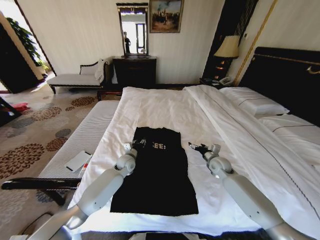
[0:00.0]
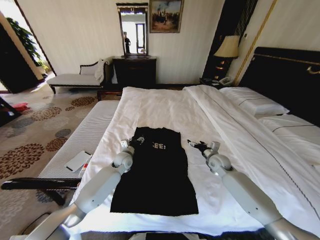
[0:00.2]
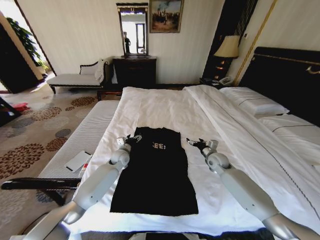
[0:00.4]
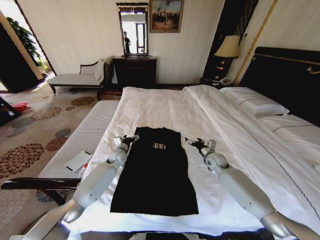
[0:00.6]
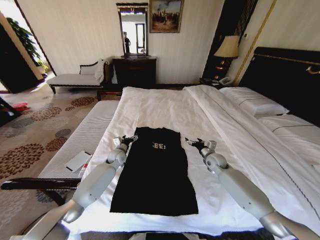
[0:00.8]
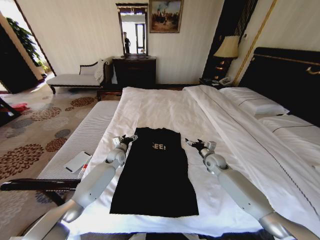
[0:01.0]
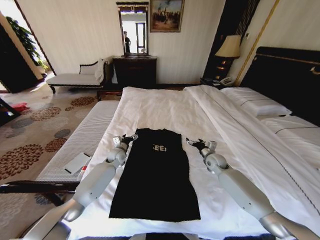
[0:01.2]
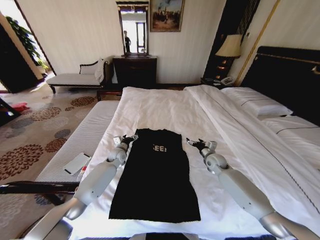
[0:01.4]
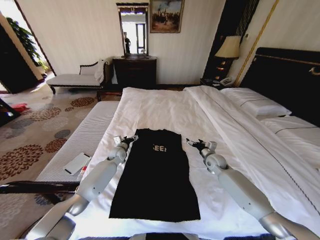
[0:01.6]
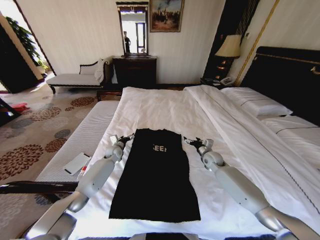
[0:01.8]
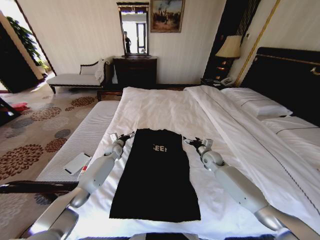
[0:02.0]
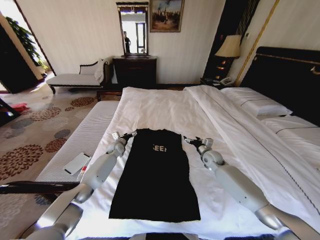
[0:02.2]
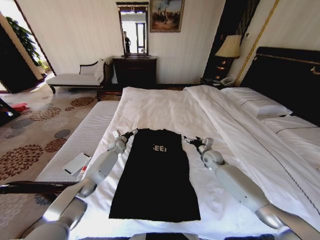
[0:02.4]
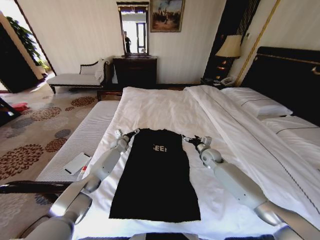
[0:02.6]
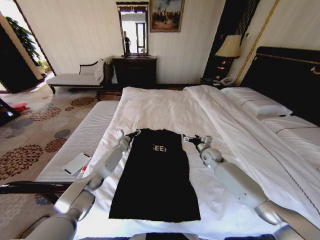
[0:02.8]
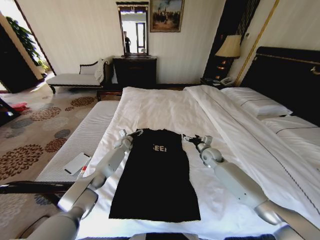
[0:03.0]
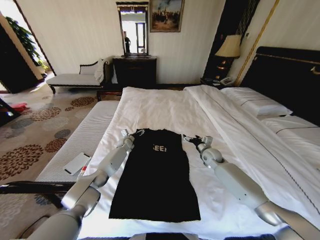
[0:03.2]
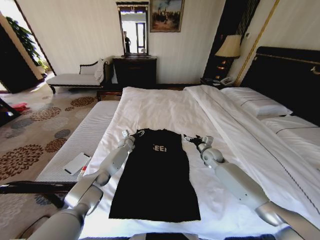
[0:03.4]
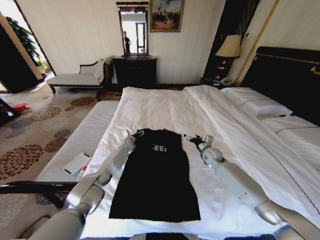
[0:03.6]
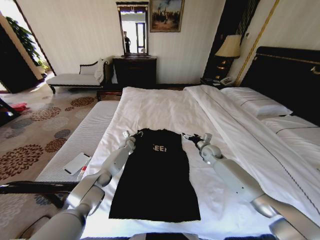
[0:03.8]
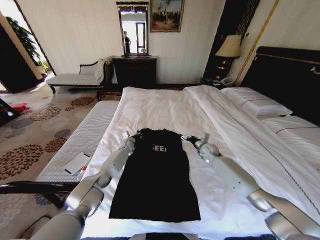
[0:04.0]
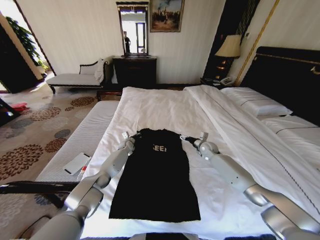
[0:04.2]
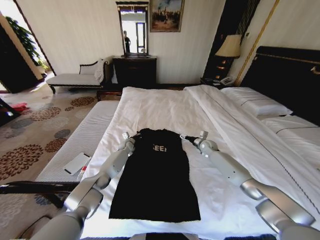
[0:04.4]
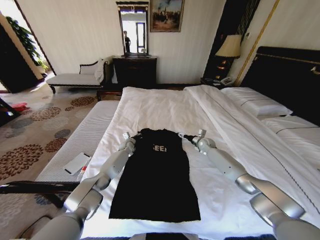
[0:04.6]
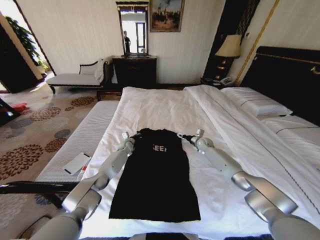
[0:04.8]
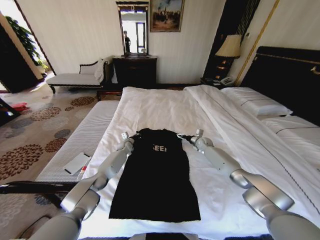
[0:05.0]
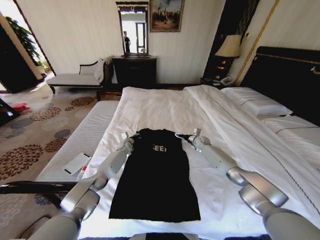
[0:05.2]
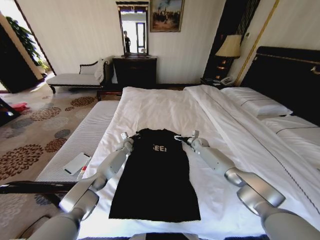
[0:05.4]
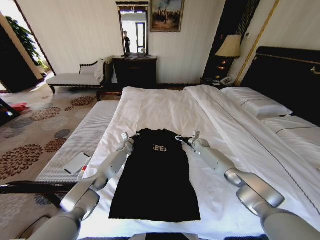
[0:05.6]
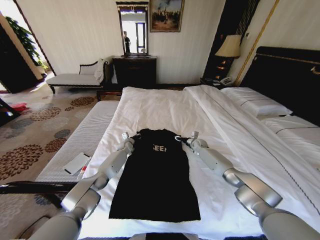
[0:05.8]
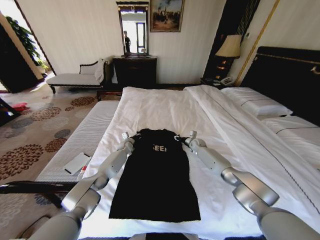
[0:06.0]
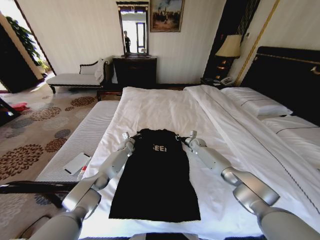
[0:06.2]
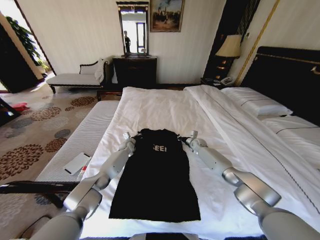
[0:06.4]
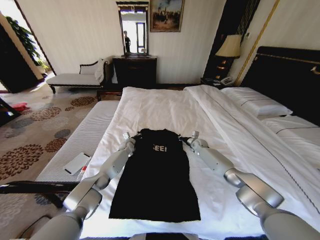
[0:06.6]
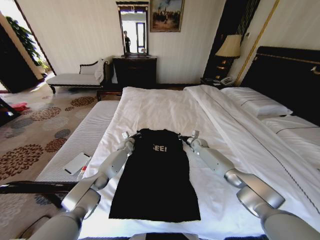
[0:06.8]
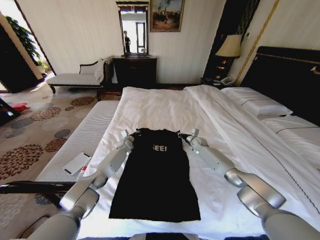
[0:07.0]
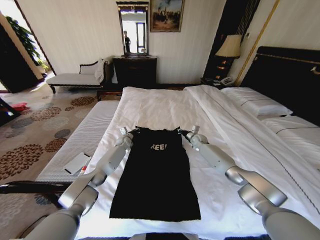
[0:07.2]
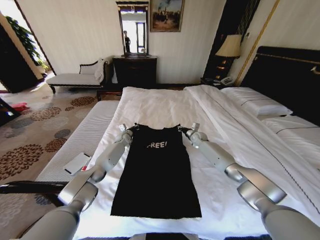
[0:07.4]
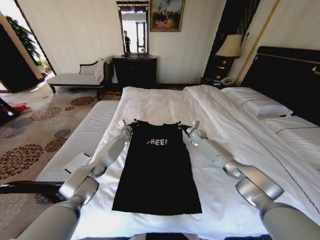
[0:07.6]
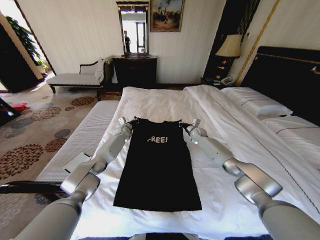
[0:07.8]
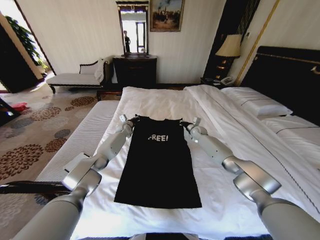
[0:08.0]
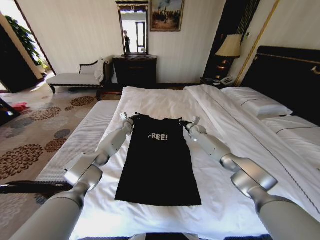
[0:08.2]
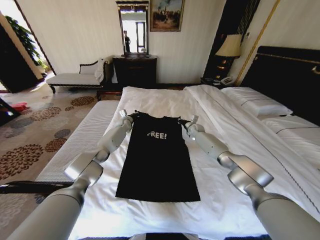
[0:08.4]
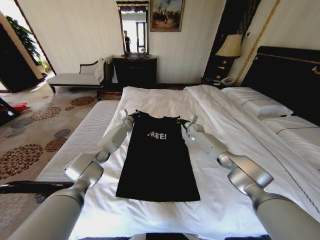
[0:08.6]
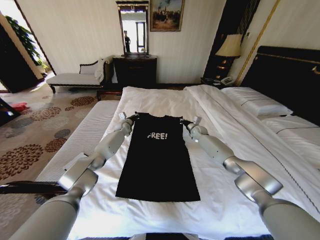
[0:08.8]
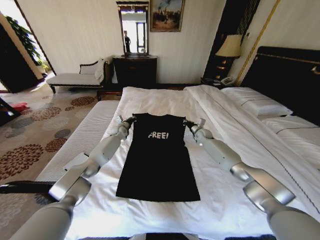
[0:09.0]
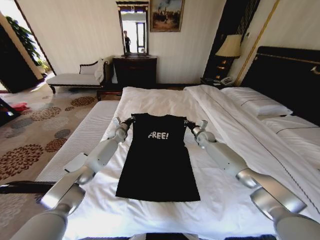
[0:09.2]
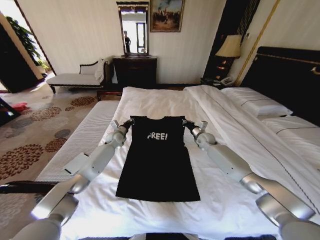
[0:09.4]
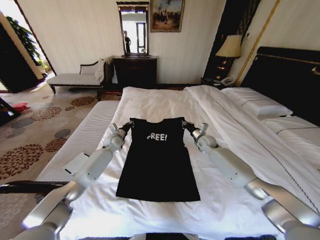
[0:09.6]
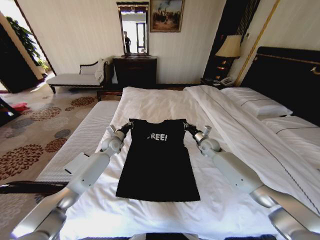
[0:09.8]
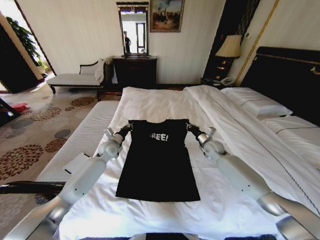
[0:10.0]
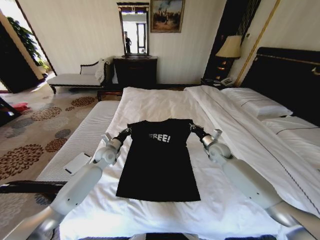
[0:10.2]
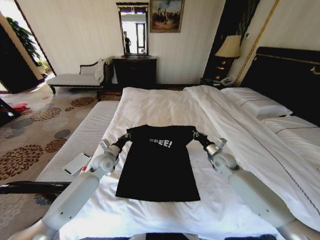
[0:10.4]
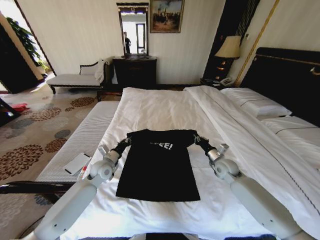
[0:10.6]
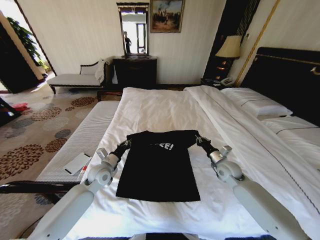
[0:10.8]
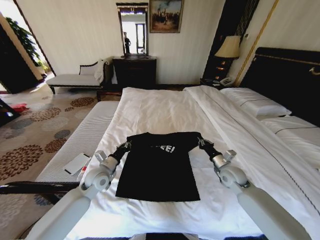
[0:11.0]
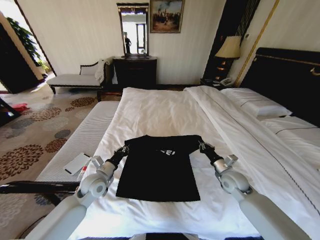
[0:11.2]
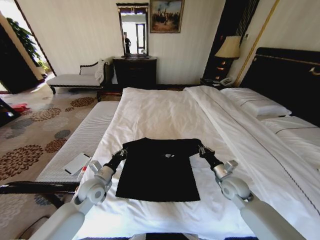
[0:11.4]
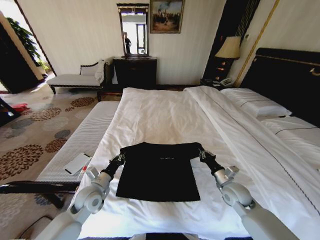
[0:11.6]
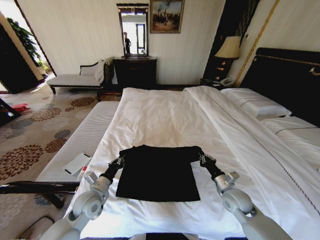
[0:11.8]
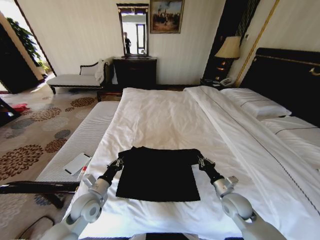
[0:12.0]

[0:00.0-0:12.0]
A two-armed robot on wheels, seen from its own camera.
Task of the whole recording: Fold the clothes on the bed.
0:00.0 to 0:01.6: The left gripper goes some 10 cm to the left and forward, and opens up.
0:01.6 to 0:03.0: The left gripper shifts roughly 10 cm forward.
0:03.0 to 0:04.4: The left gripper closes; the right gripper shifts roughly 10 cm forward.
0:04.4 to 0:06.0: The right gripper ends up approximately 5 cm from where it was, and closes.
0:06.0 to 0:07.6: The two grippers go about 5 cm upward. The right gripper closes.
0:09.0 to 0:10.4: Both grippers move backward, about 20 cm.
0:10.4 to 0:12.0: Both grippers travel together backward, approximately 20 cm.

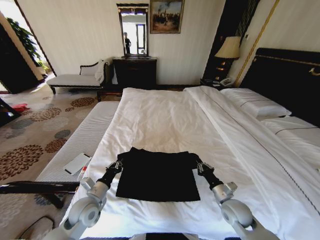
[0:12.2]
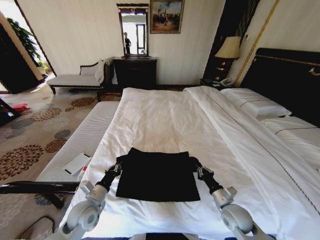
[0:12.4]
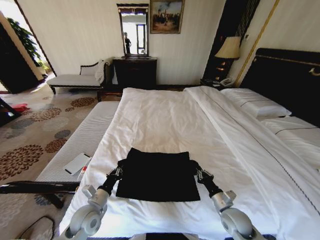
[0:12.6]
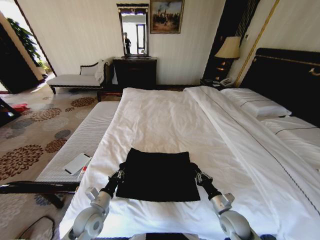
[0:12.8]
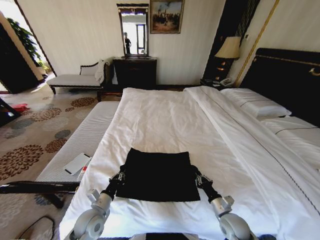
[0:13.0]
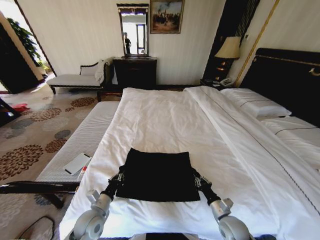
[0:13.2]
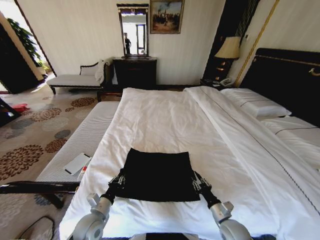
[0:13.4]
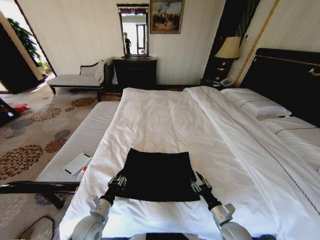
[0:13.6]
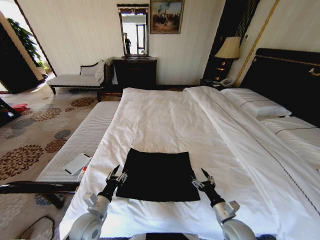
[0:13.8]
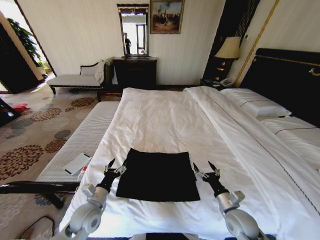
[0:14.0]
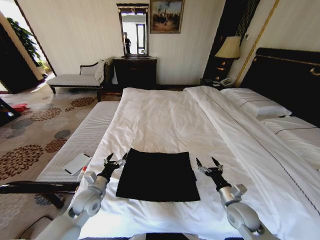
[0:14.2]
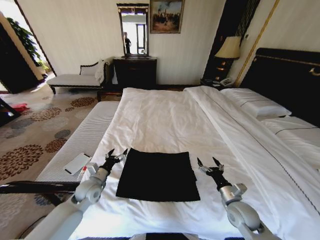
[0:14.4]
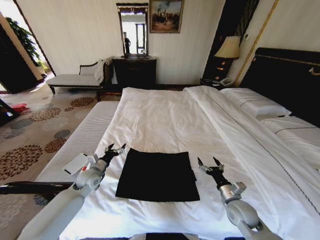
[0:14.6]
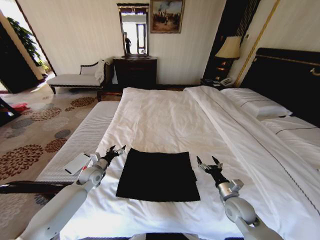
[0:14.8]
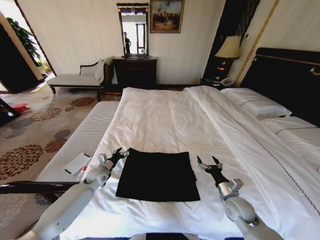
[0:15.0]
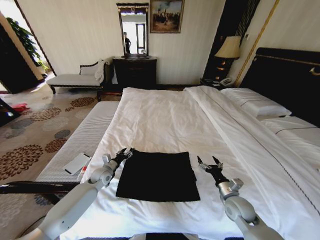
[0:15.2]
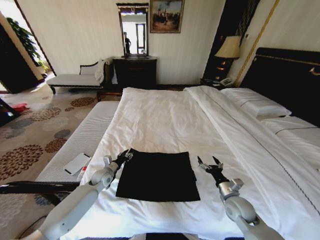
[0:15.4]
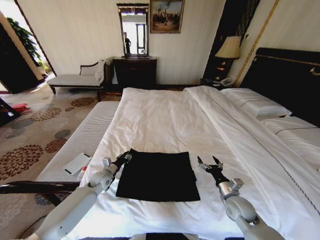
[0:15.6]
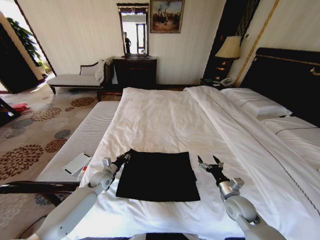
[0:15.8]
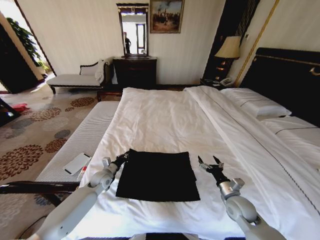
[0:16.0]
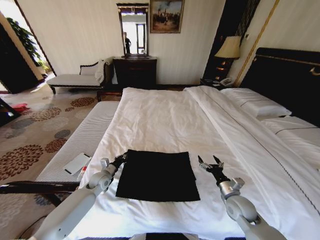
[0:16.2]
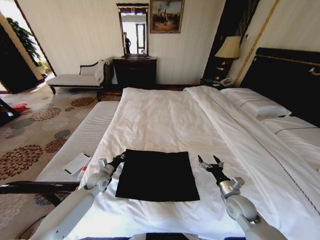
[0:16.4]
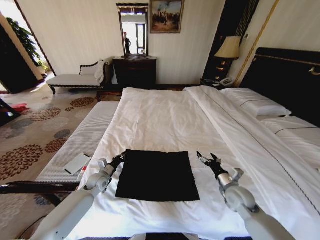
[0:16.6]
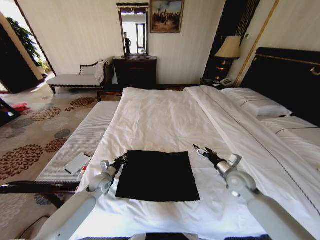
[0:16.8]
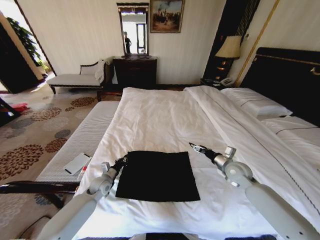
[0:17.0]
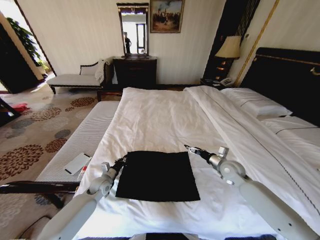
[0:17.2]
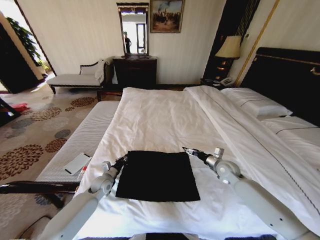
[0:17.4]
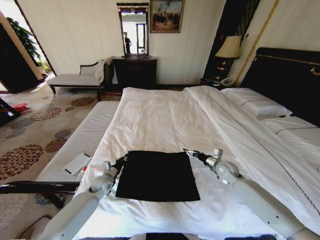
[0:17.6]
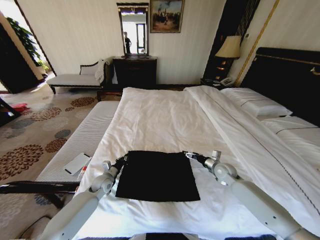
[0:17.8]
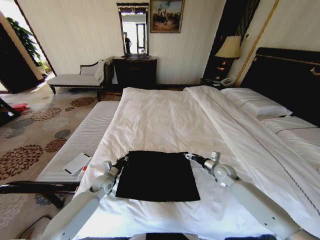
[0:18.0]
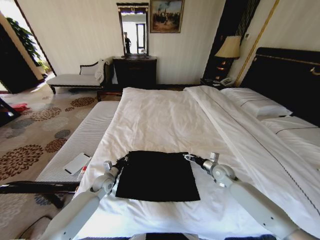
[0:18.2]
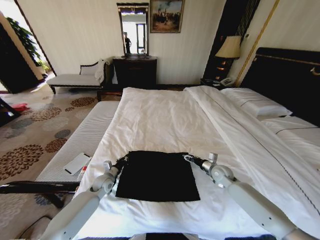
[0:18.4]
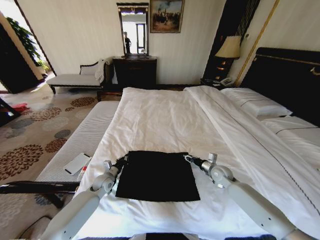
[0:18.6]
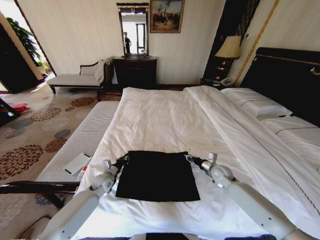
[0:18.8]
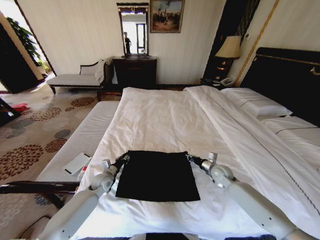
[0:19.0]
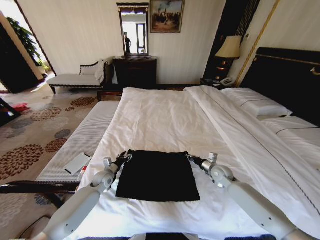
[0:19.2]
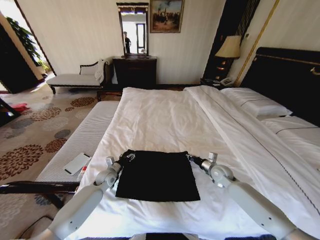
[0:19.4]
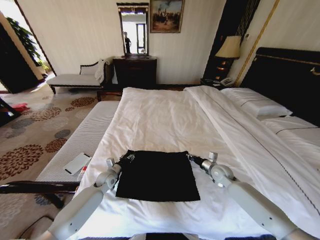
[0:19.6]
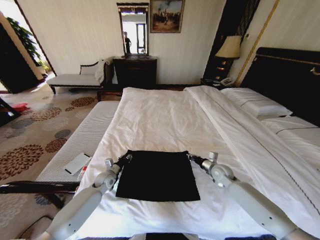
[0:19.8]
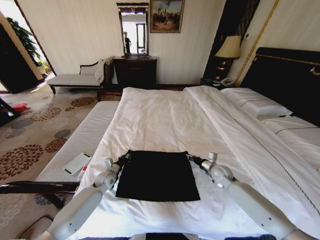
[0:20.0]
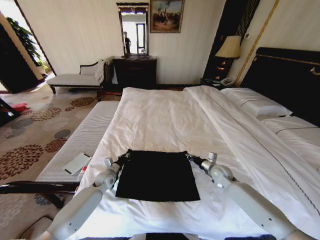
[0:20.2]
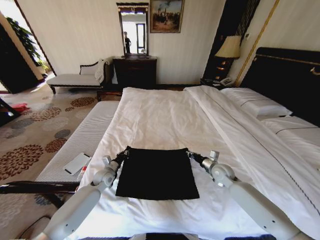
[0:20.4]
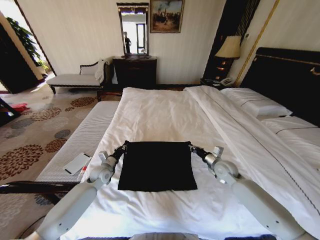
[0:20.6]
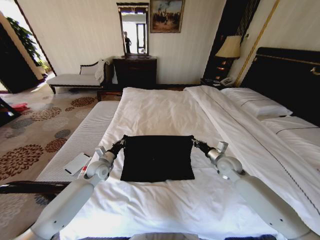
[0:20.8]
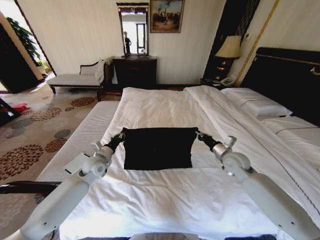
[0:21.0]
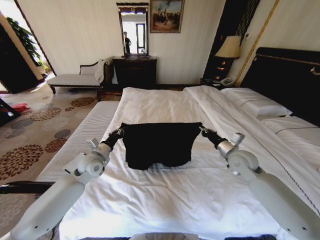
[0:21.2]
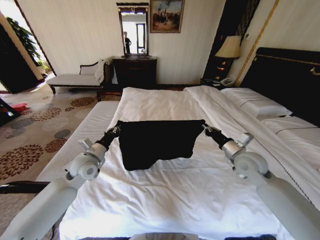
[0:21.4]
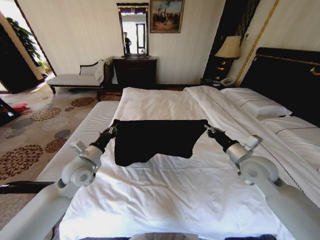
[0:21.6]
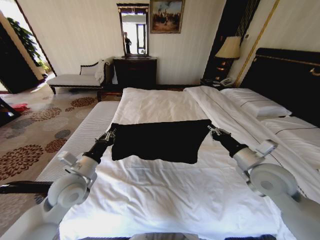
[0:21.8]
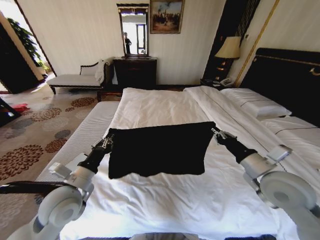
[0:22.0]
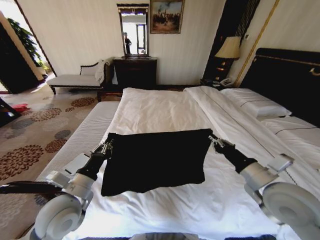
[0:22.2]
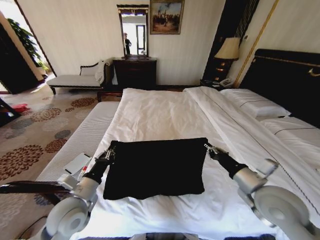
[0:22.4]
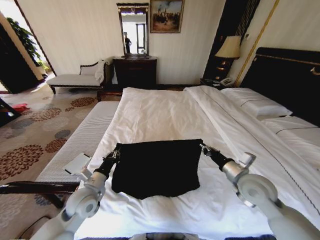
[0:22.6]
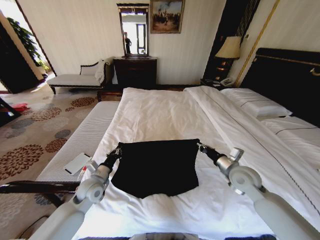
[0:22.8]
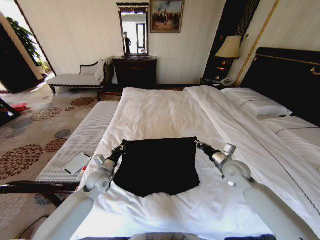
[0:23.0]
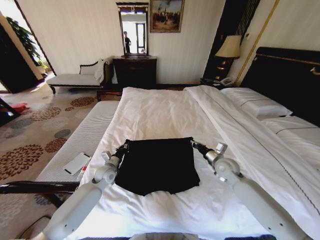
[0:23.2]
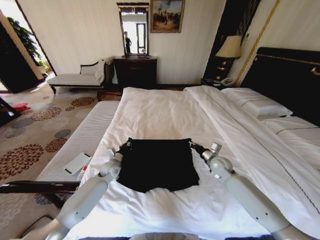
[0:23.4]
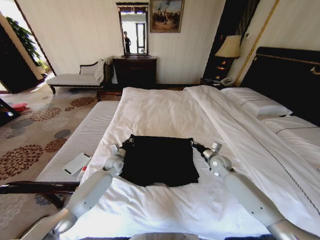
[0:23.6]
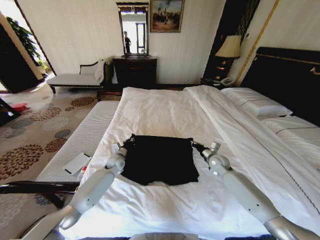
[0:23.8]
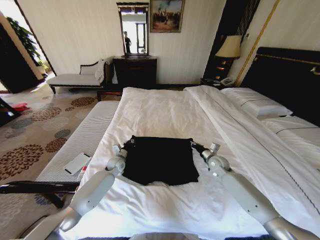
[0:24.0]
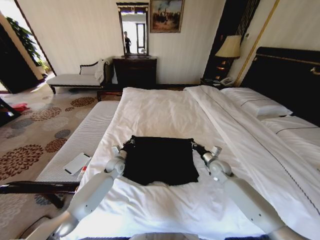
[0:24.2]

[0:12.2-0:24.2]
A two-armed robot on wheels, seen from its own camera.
Task of the whole recording: Fold the clothes on the bed.
0:12.2 to 0:13.8: The right gripper shifts about 5 cm backward, and opens up; the left gripper ends up approximately 5 cm from where it was, and opens.
0:13.8 to 0:15.2: The left gripper moves forward, about 20 cm, while the right gripper goes some 10 cm forward.
0:15.2 to 0:16.6: The left gripper closes up.
0:16.6 to 0:18.2: The right gripper shifts roughly 15 cm forward.
0:18.2 to 0:19.8: The right gripper closes. The left gripper opens and closes again.
0:19.8 to 0:21.2: Both grippers travel together upward, approximately 15 cm.
0:21.2 to 0:22.6: Both grippers travel together backward, approximately 10 cm.
0:22.6 to 0:24.2: Both grippers move forward and downward, approximately 20 cm.
